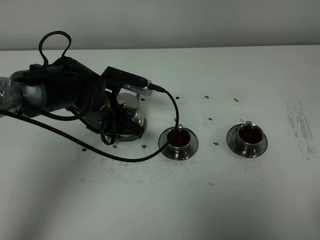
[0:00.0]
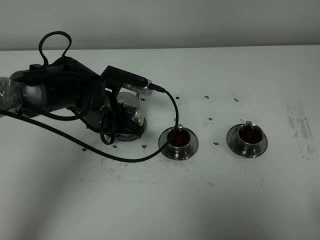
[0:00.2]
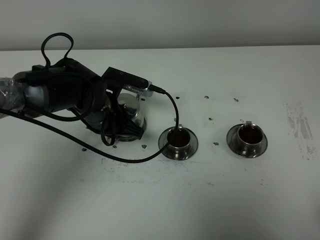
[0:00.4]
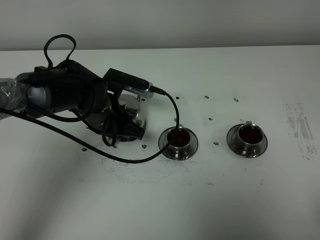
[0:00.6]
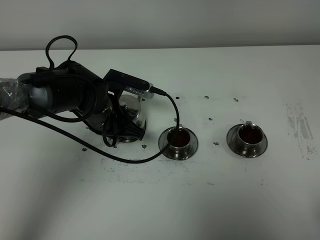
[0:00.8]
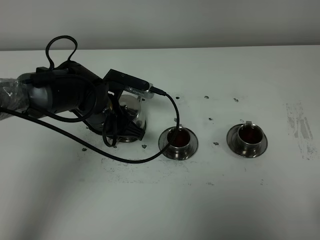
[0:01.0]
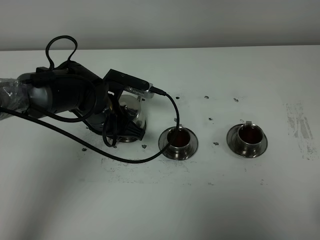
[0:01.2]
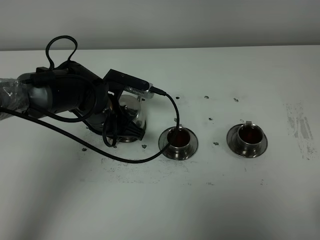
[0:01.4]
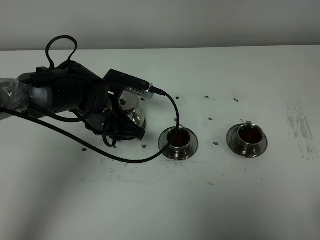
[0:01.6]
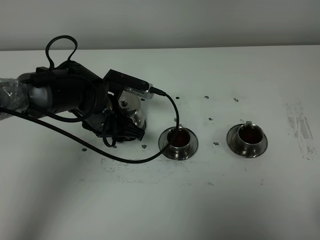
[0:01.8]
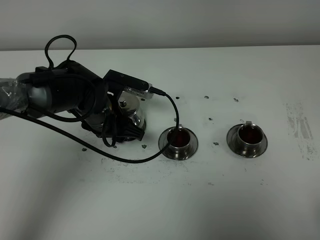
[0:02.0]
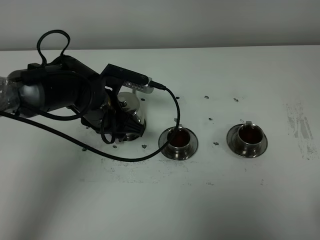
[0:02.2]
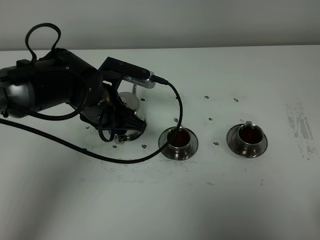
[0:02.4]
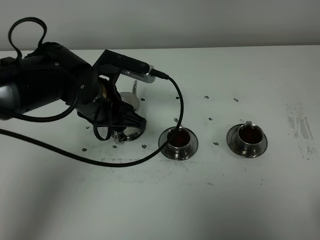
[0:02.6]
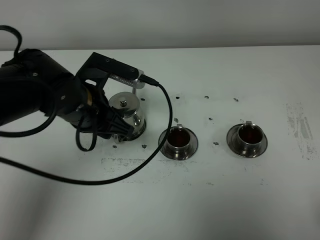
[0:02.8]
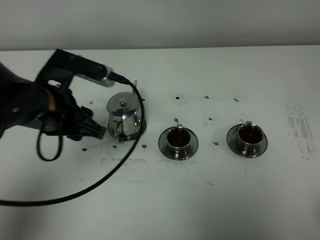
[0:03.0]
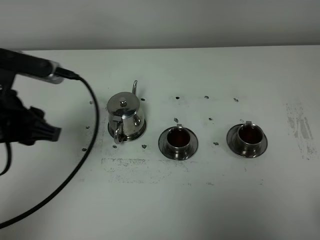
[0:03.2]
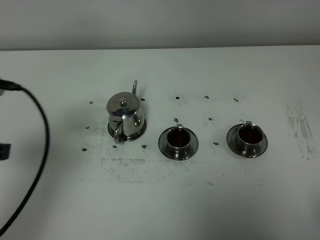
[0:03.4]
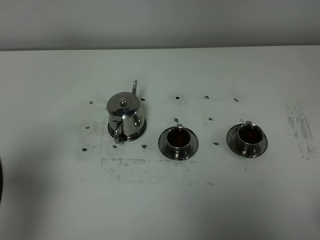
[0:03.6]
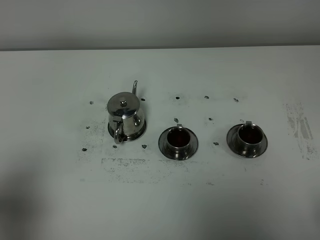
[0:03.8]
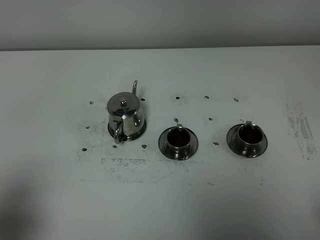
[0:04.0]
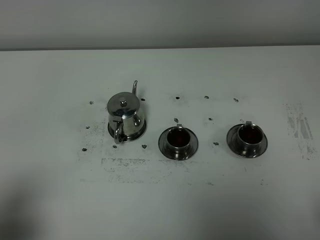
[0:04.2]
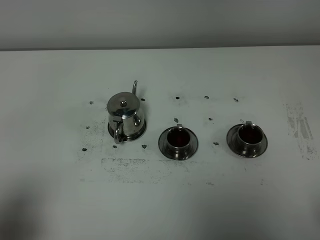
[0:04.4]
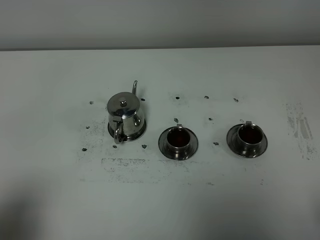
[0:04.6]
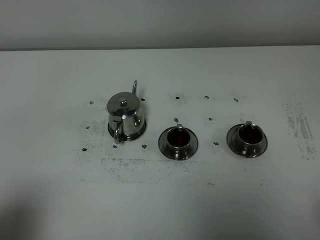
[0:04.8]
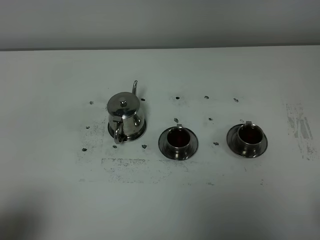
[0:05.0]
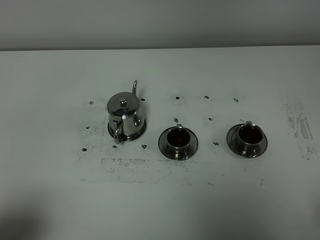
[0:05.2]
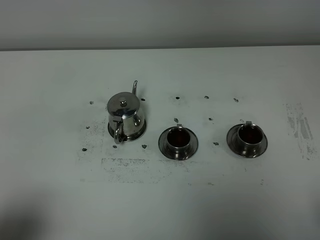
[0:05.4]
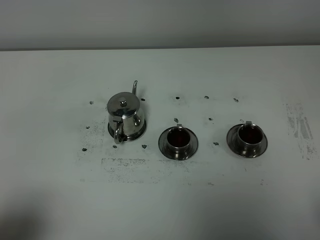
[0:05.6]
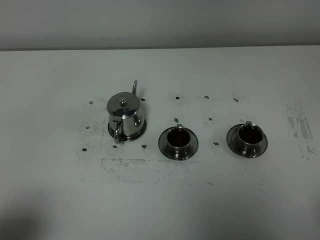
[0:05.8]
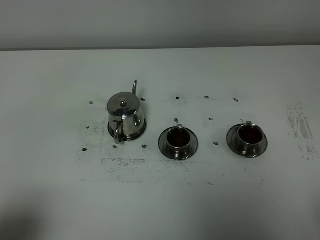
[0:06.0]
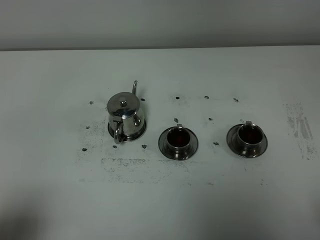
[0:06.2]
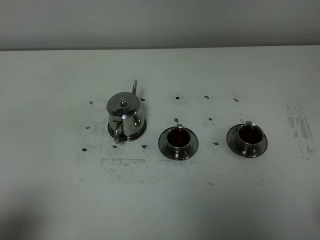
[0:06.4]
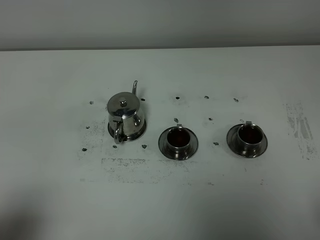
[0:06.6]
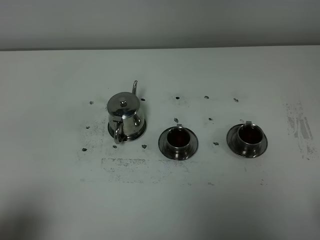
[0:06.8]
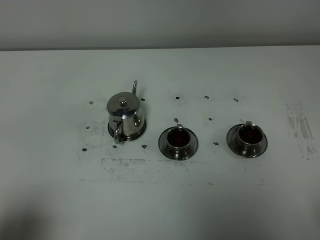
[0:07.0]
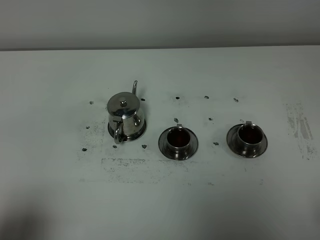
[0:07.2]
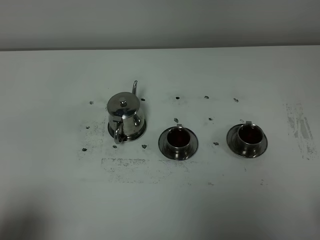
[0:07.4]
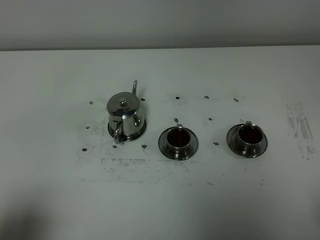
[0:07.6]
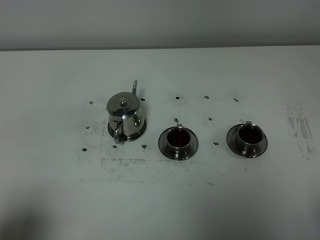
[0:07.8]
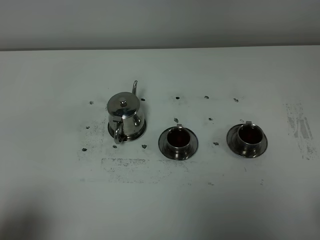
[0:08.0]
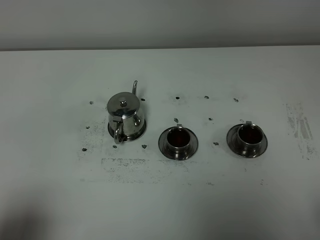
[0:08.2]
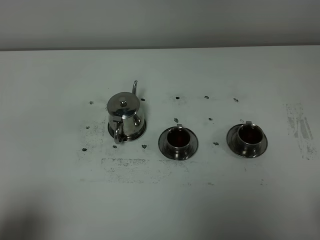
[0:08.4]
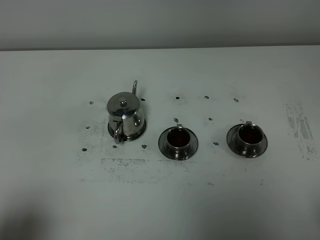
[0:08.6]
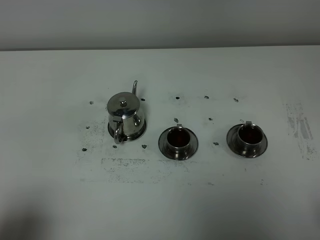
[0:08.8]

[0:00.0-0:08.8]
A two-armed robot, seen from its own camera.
Task of the whole recording: grasp the stainless steel teapot and pour the tea into the two stainless steel teacups one by one, put the stainless steel teapot back in its original place.
0:00.0 to 0:01.4: The two grippers keep their place.
0:01.4 to 0:03.0: The left gripper goes approximately 15 cm upward, backward and to the left, and opens its fingers.
0:03.0 to 0:04.4: The left gripper shifts roughly 25 cm backward and to the left.
0:07.4 to 0:08.8: Both grippers stay put.

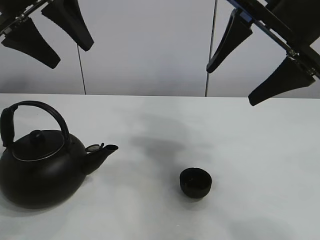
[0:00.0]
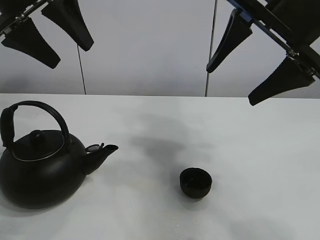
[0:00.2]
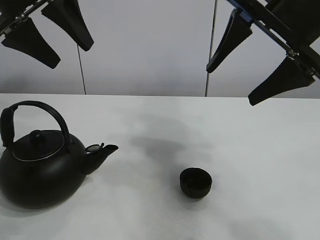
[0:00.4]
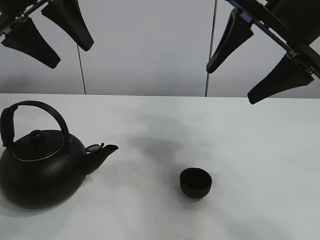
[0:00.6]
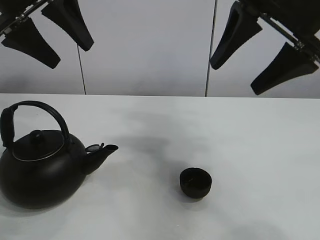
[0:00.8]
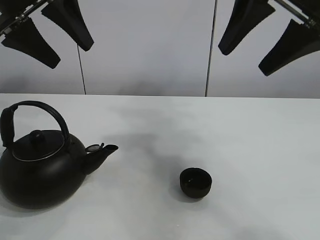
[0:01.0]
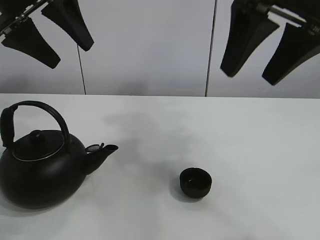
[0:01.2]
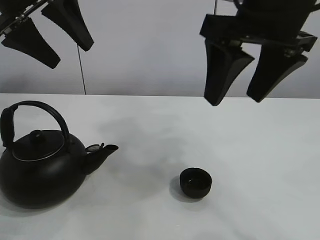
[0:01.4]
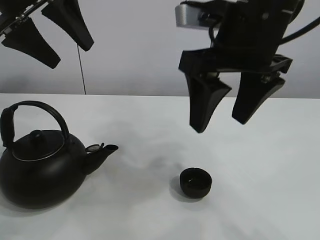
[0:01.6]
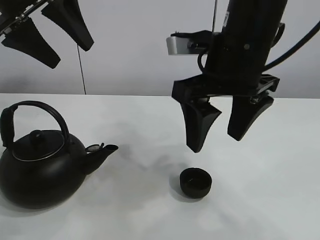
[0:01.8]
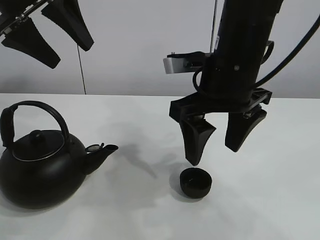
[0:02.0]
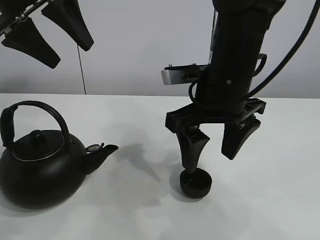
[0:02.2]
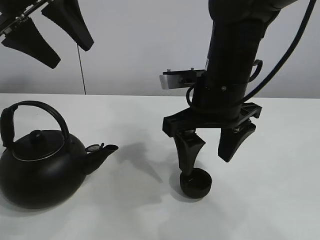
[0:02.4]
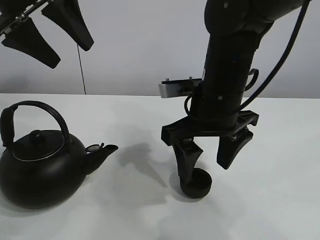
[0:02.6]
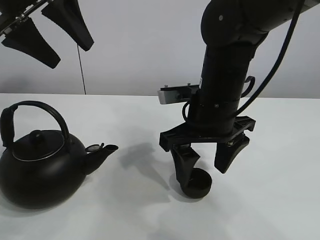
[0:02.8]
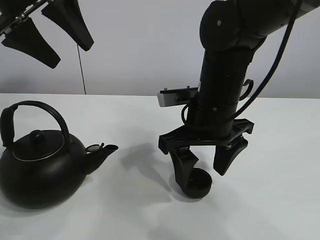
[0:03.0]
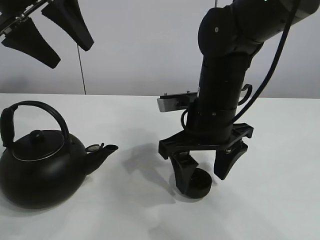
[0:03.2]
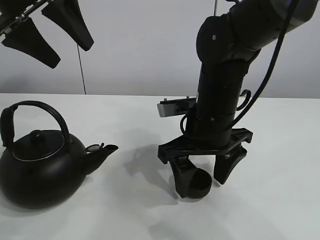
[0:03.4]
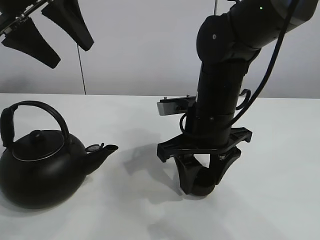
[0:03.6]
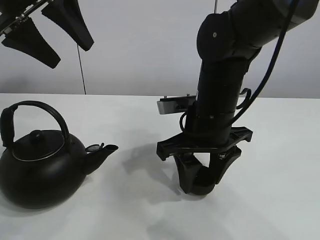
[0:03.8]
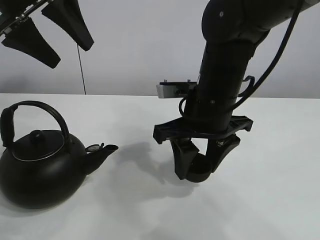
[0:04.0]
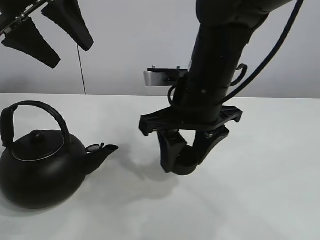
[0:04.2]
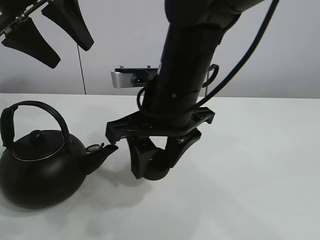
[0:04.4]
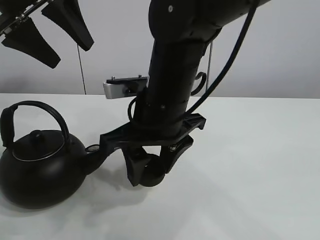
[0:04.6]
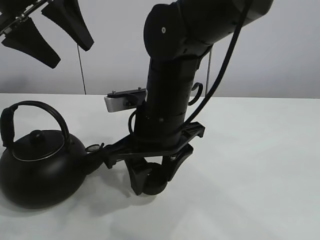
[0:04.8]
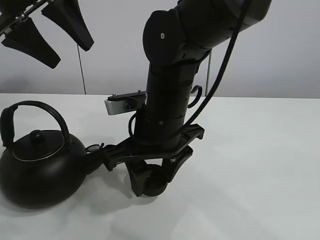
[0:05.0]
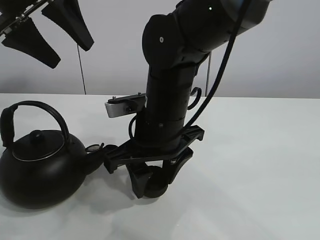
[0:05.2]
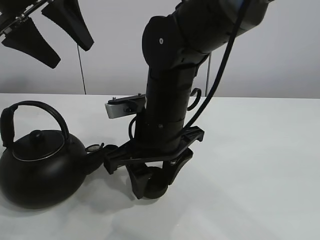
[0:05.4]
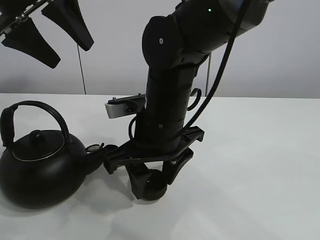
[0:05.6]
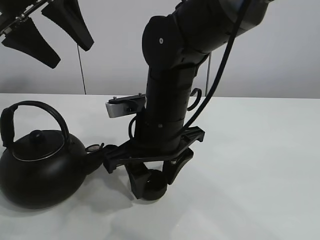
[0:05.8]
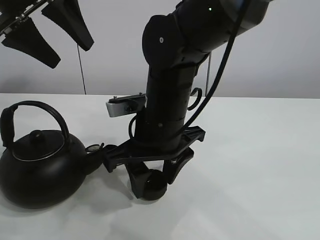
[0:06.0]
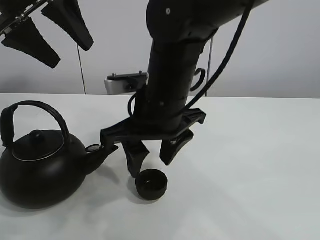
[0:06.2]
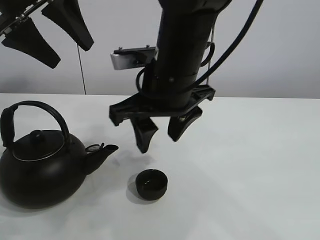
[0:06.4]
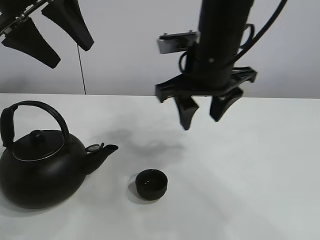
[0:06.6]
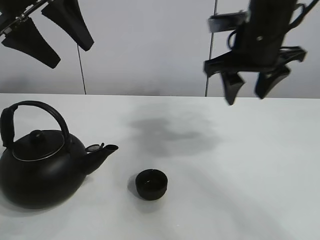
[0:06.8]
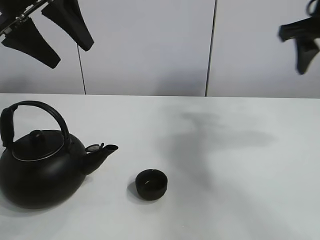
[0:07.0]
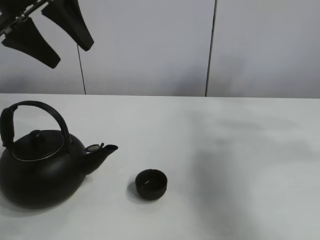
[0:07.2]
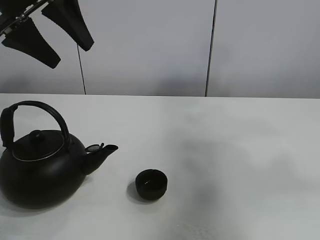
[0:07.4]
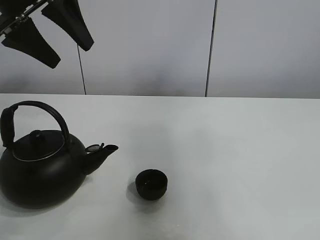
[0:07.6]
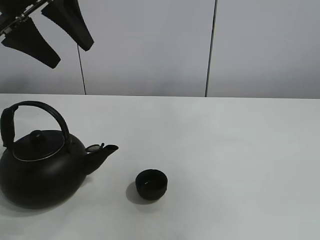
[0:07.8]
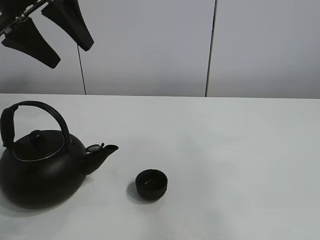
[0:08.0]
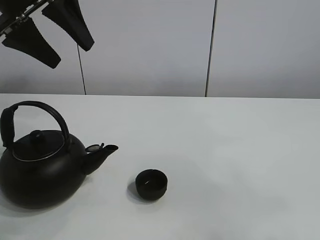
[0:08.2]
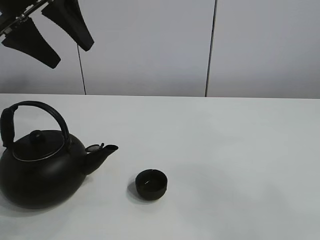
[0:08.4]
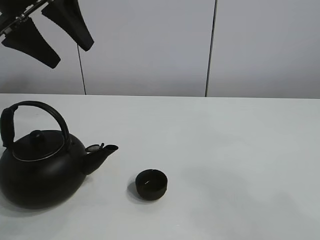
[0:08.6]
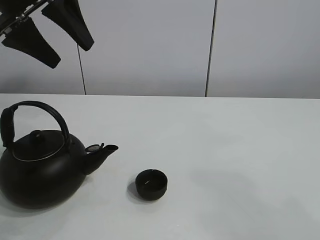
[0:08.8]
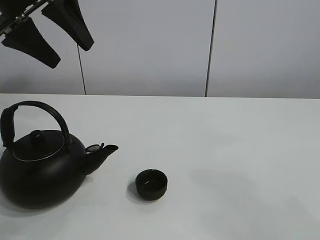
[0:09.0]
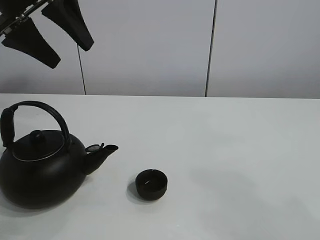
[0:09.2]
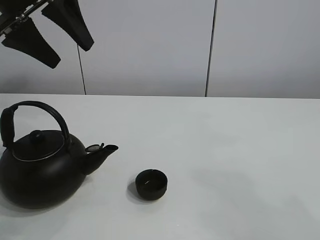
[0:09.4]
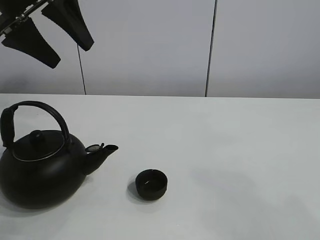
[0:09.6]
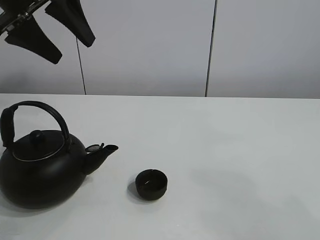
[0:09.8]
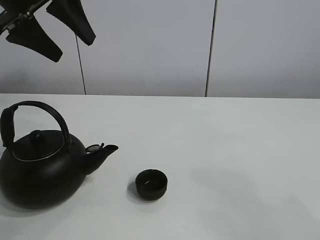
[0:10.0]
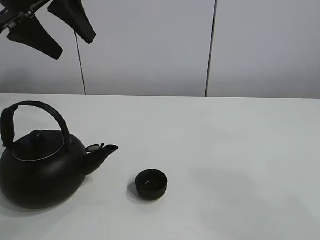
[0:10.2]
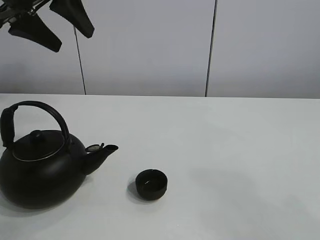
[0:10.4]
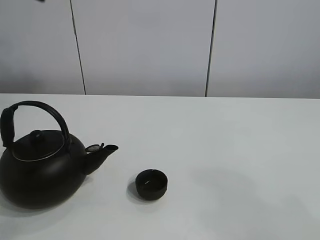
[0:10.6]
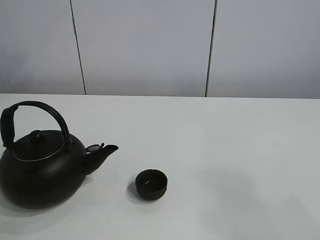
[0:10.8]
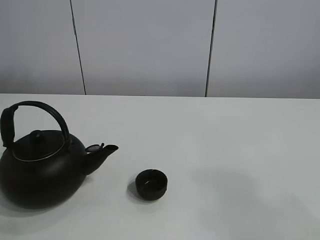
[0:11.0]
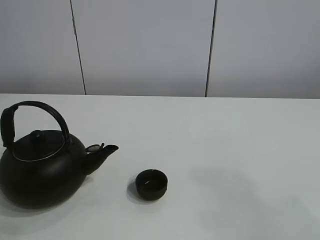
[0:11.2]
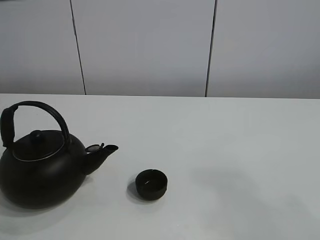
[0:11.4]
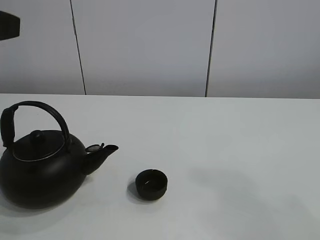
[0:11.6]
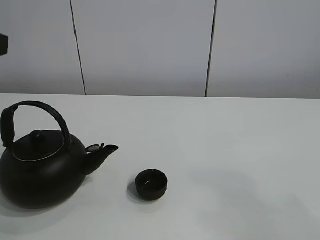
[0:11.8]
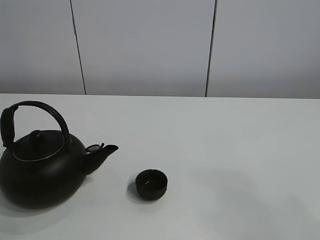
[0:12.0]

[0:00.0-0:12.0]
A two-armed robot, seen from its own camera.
Task of the whole recording: pour tea into the teacup.
Step, 0:00.0 to 0:03.6: Pick up the teacup with the right gripper.
Step, 0:04.0 to 0:05.8: Place the teacup in the center of view with the right gripper.
0:01.6 to 0:03.0: The right gripper is displaced downward by roughly 10 cm.
0:03.0 to 0:04.4: The right gripper goes roughly 5 cm to the left, and closes up.
0:04.4 to 0:06.0: The right gripper shifts by approximately 5 cm.
0:06.0 to 0:07.6: The right gripper heads upward, to the right and backward, covering roughly 50 cm.
0:07.6 to 0:09.0: The right gripper goes about 25 cm downward and backward.
0:09.0 to 0:10.4: The grippers make only small movements.
0:10.4 to 0:12.0: The left gripper shifts approximately 20 cm backward and downward.

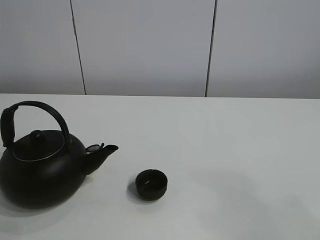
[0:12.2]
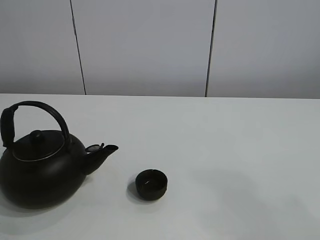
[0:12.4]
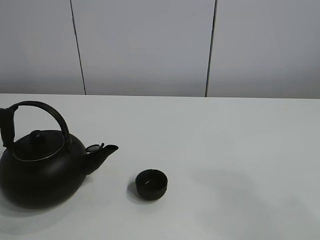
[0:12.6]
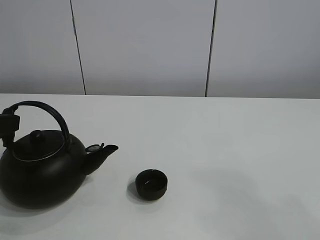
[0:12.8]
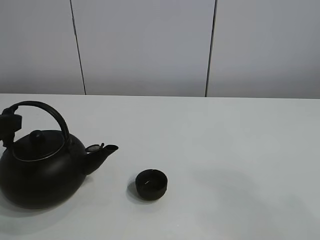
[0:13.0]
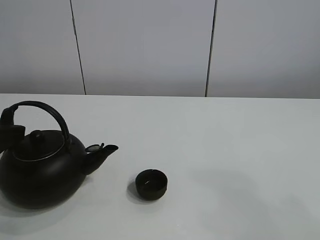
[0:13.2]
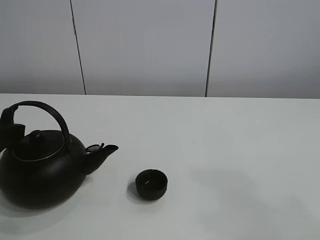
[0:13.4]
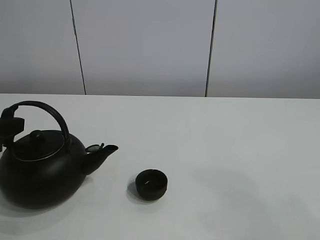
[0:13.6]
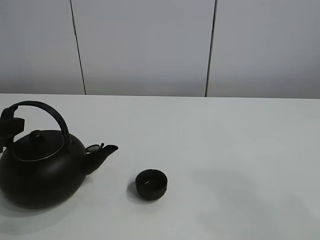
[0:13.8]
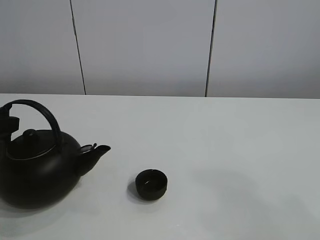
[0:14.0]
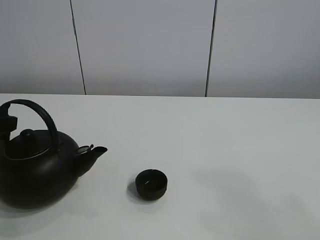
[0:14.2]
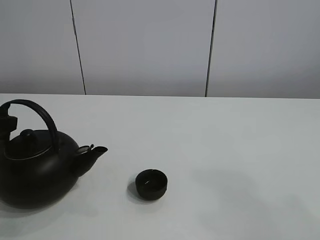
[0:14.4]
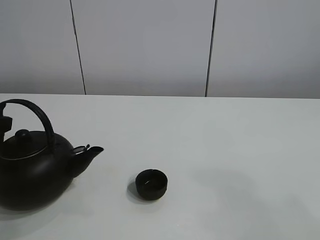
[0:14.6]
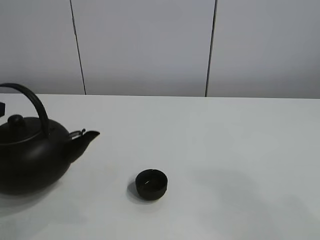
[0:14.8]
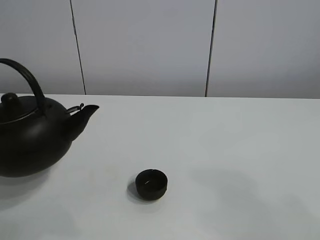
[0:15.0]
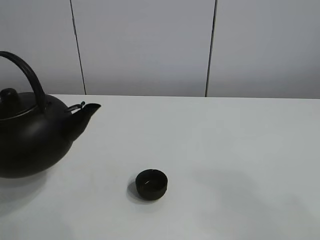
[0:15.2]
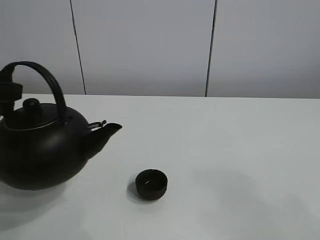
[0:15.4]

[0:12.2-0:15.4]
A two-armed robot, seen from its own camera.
Task of the whole recording: pour tea into the teacup.
Step, 0:12.2 to 0:14.4: Pick up the teapot with the left gripper.
0:13.8 to 0:15.4: The left gripper is displaced upward by roughly 5 cm, and closes up.
